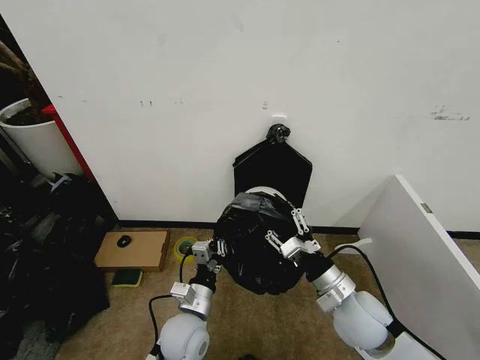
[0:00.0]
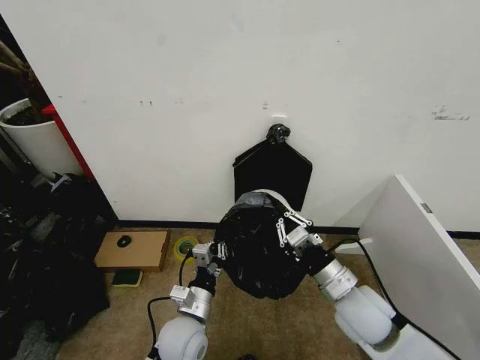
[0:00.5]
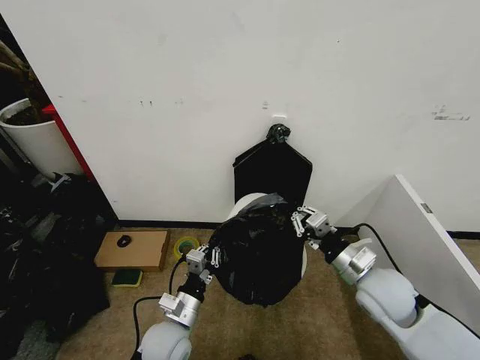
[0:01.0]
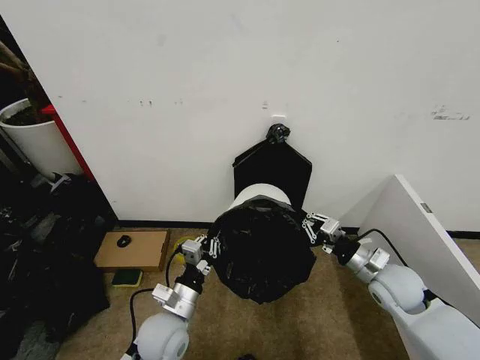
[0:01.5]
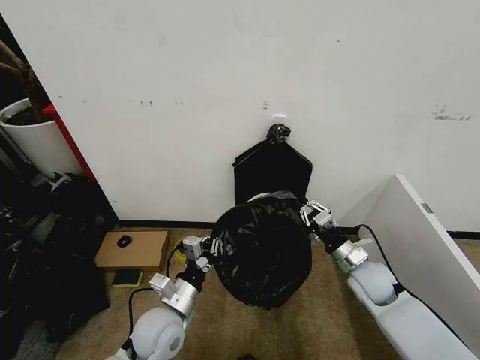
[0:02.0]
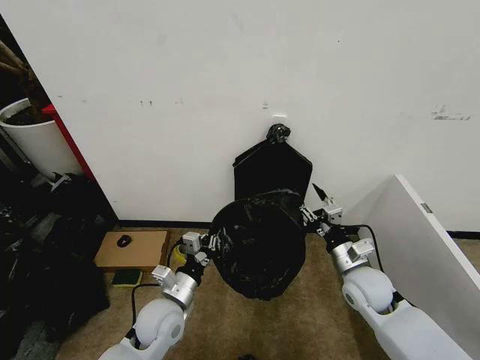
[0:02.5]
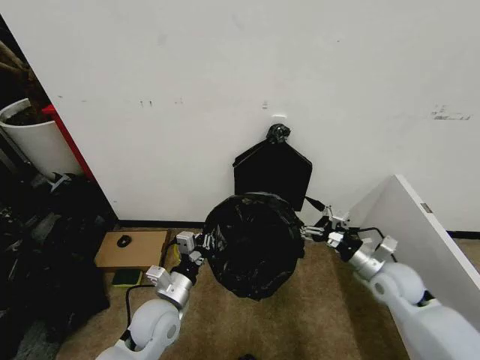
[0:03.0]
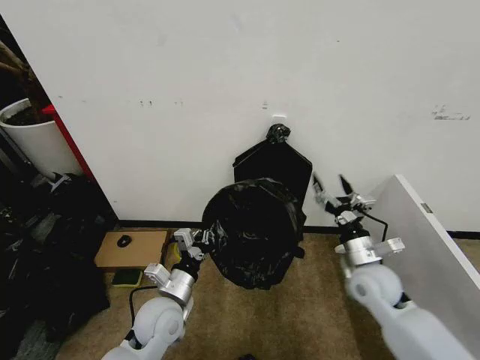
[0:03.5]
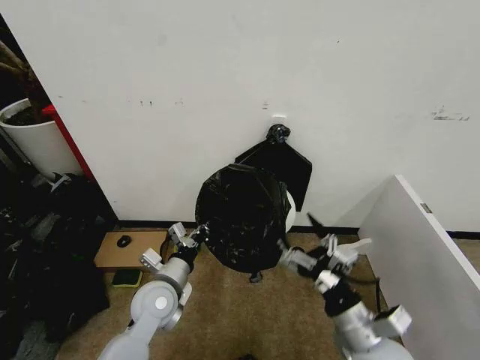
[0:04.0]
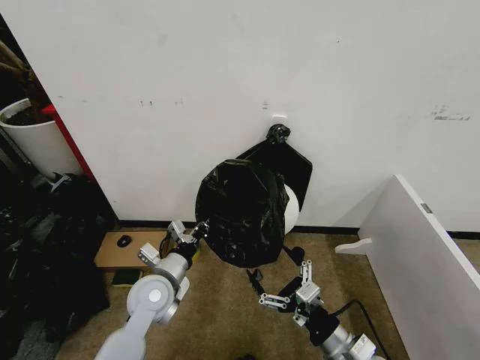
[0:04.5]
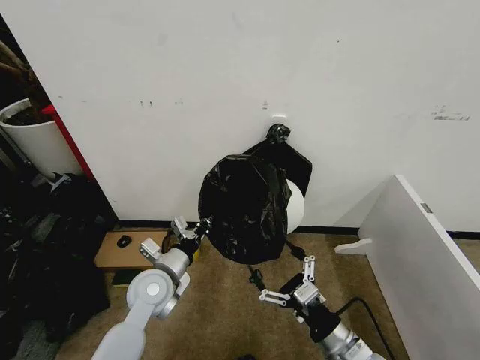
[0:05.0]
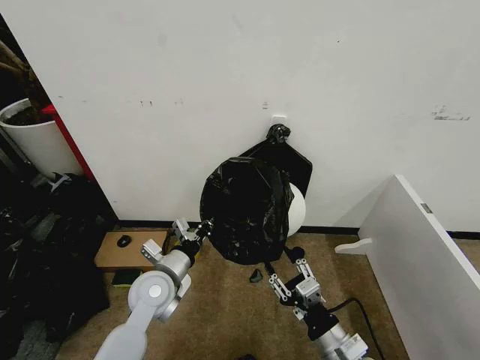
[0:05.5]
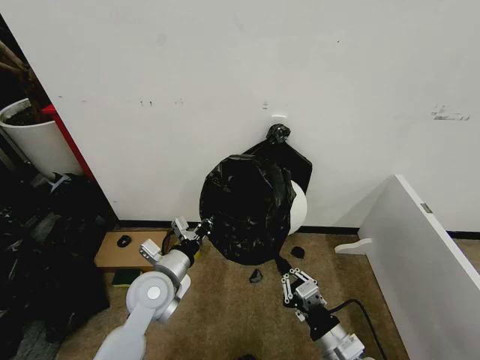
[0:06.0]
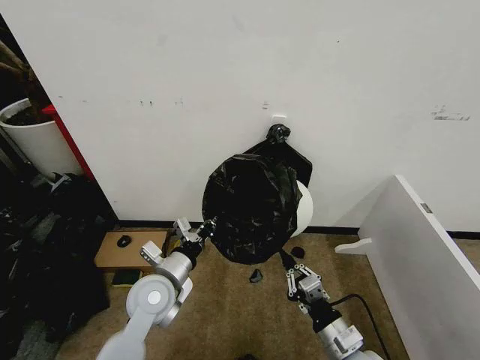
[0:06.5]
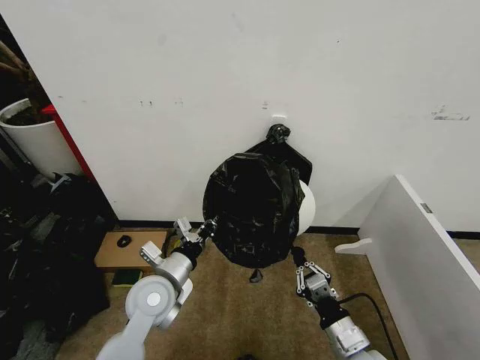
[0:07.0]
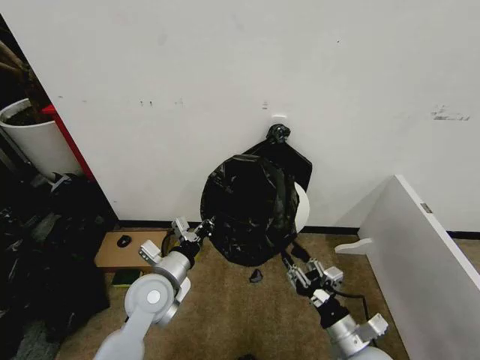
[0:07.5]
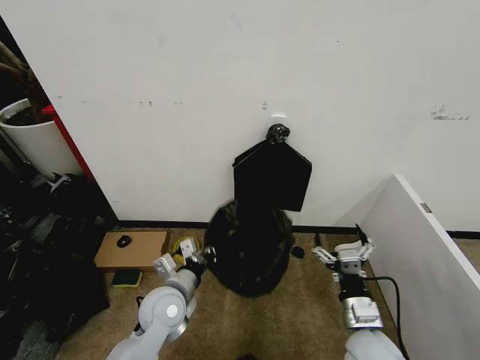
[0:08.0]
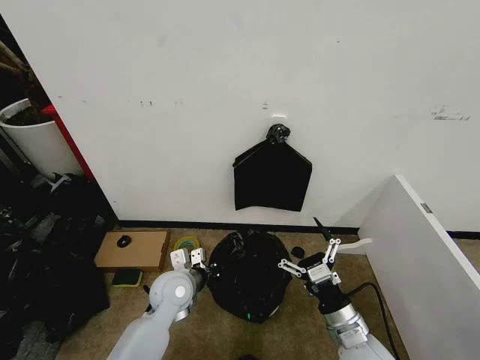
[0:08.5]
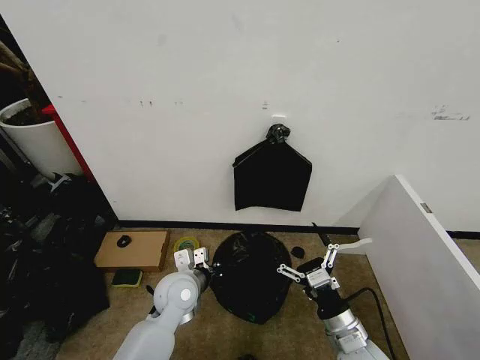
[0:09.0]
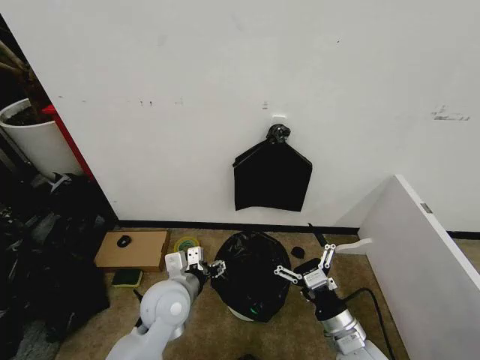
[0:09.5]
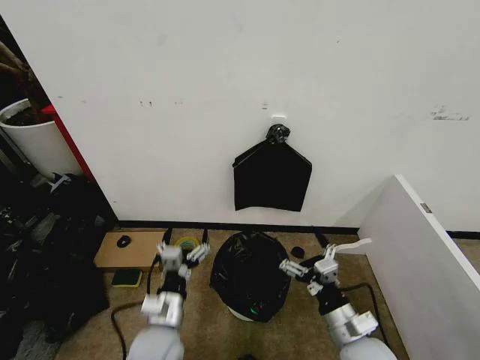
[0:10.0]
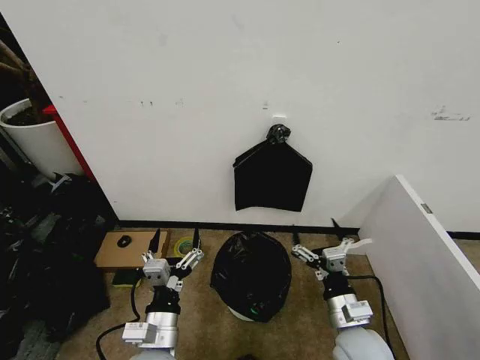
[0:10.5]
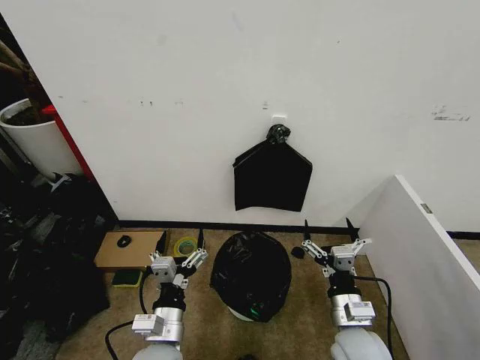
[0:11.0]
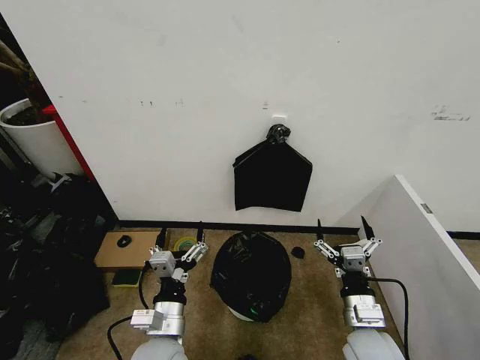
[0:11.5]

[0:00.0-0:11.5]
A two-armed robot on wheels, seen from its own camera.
Task of the whole recording: Place the garbage bag over the trash bin.
0:00.0 to 0:02.0: The left gripper ends up about 5 cm from where it was. The right gripper shifts about 15 cm forward, to the right and downward, and closes its fingers.
0:02.0 to 0:04.0: The right gripper goes about 20 cm backward, to the left and upward, and opens; the left gripper shifts some 5 cm forward.
0:04.0 to 0:06.0: The right gripper heads downward, covering approximately 5 cm, and closes.
0:06.0 to 0:07.5: The right gripper opens its fingers.
0:07.5 to 0:09.5: The right gripper opens up. The left gripper opens its fingers.
0:09.5 to 0:11.5: The left gripper shifts some 10 cm backward.

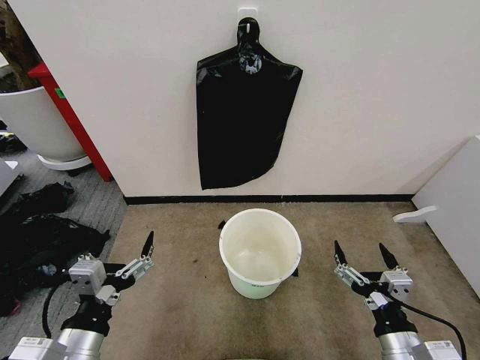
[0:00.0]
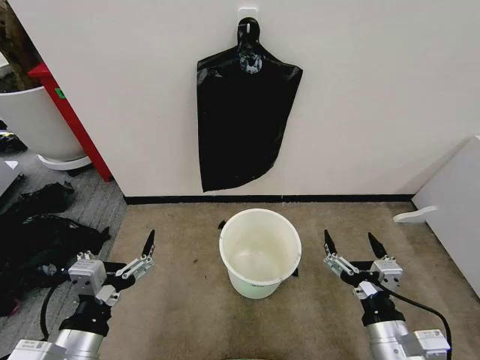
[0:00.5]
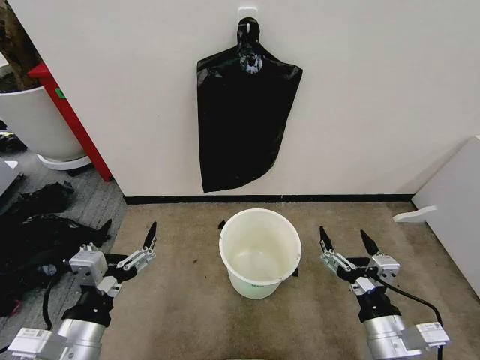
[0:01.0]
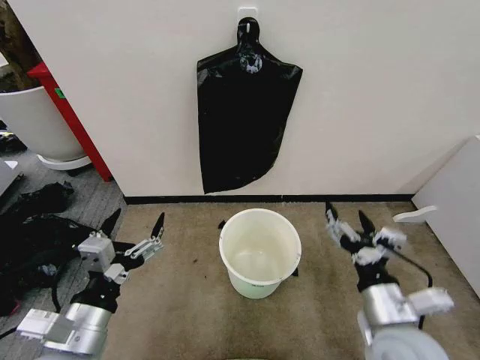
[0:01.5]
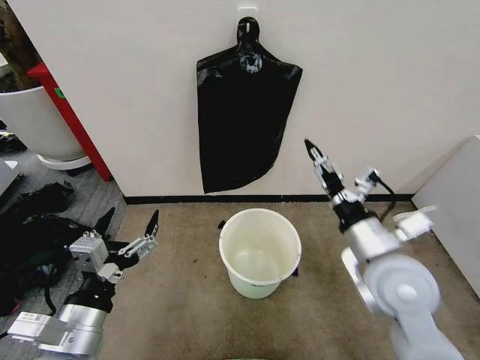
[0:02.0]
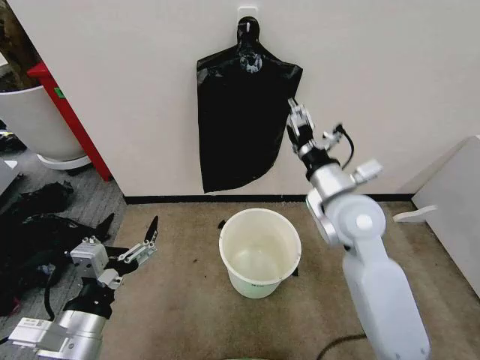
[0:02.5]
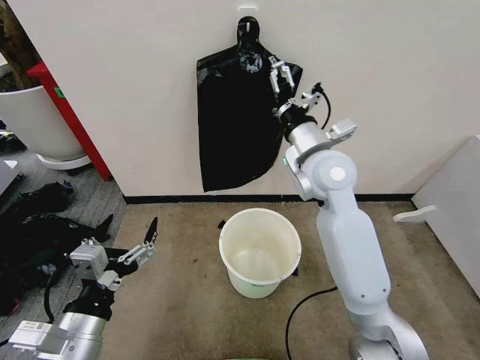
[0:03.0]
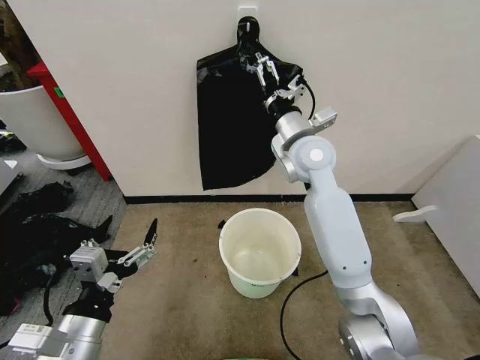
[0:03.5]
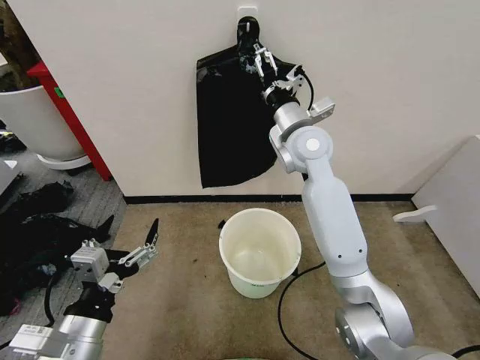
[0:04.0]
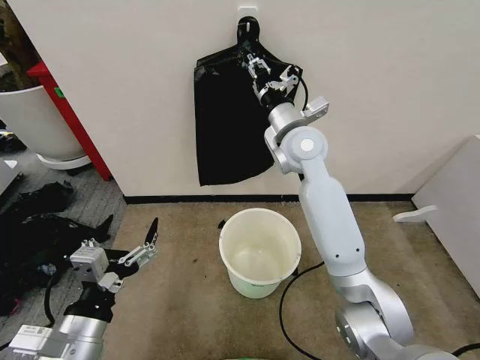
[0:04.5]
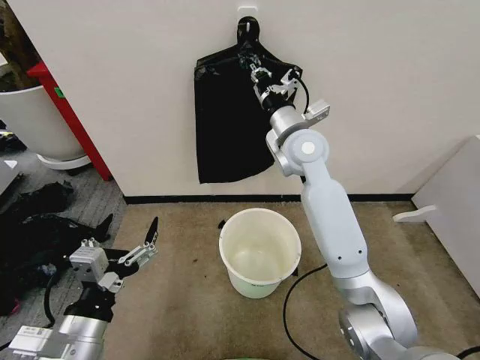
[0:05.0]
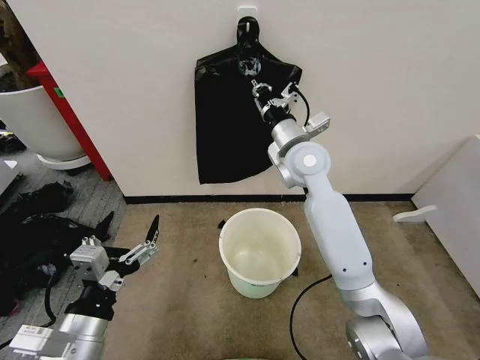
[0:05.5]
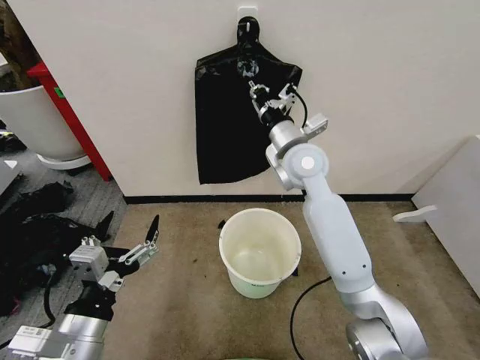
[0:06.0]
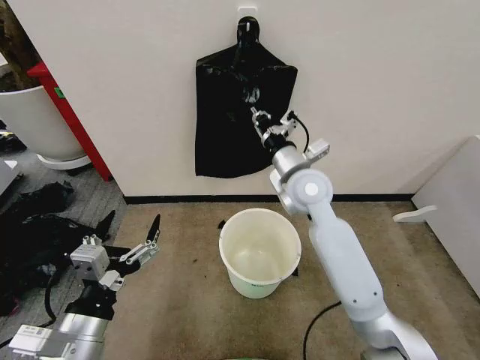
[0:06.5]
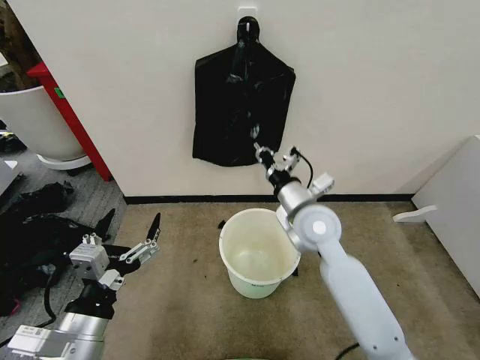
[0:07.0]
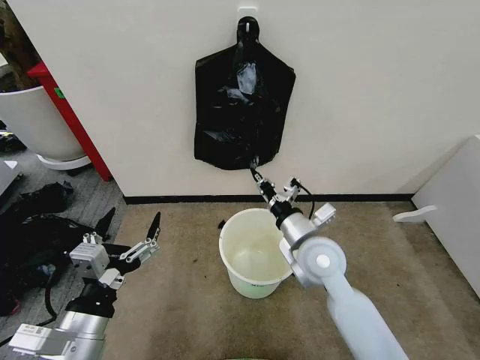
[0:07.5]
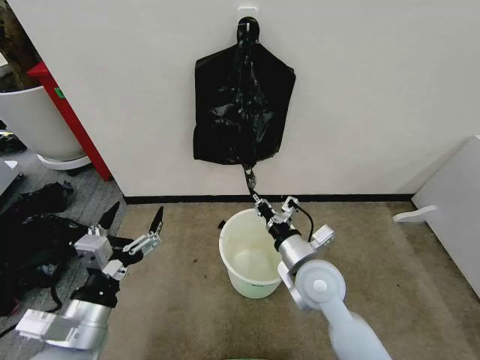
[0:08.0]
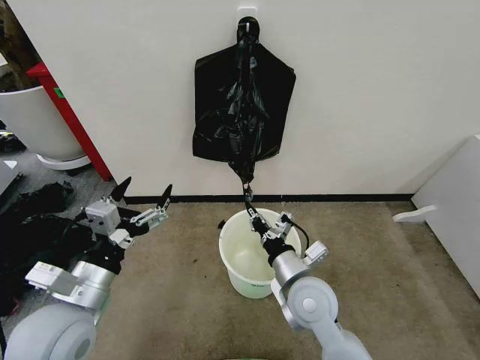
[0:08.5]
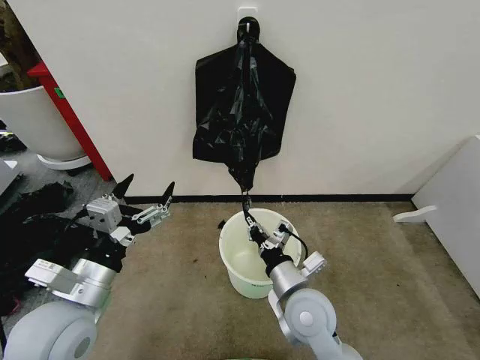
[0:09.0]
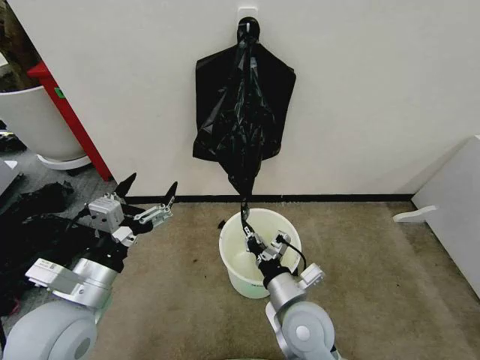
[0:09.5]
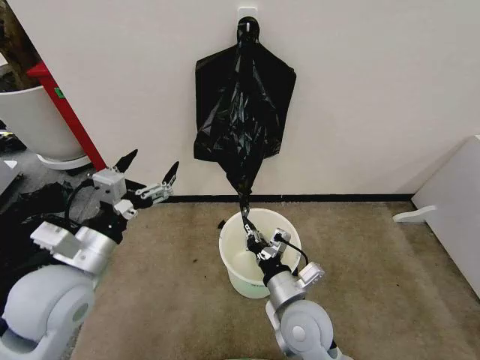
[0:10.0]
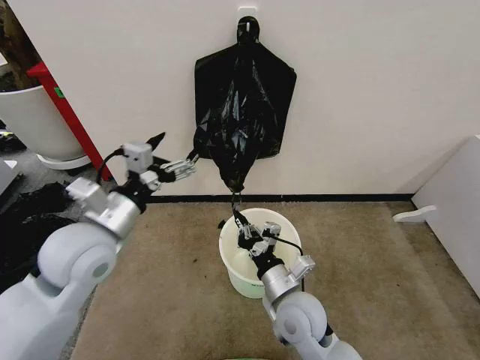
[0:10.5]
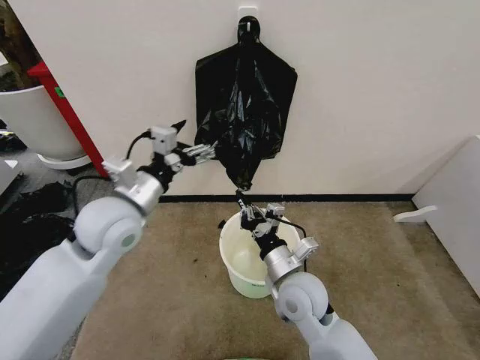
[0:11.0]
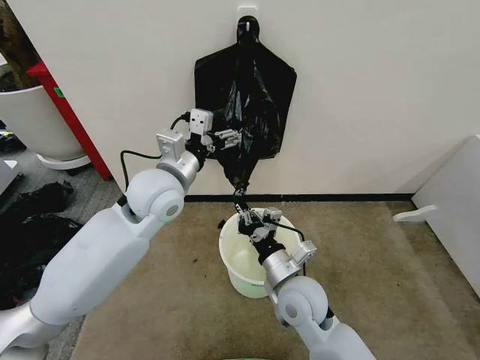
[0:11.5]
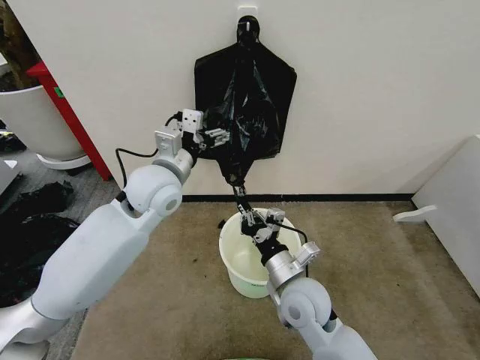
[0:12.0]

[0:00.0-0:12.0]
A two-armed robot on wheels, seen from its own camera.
Task of the whole recording: Place the garbage bag over the trash bin.
0:02.0 to 0:04.0: The right gripper goes about 30 cm forward, to the left and upward.
0:04.0 to 0:06.0: The right gripper closes up.
0:06.0 to 0:08.0: The right gripper travels backward and downward by approximately 25 cm.
0:08.0 to 0:10.0: The left gripper heads forward and upward, covering about 10 cm. Meanwhile the right gripper shifts approximately 5 cm backward.
0:10.0 to 0:12.0: The left gripper travels forward and to the right by some 20 cm.

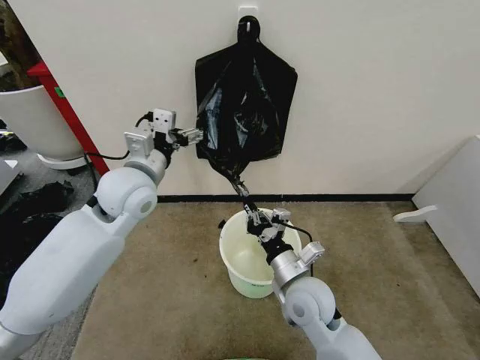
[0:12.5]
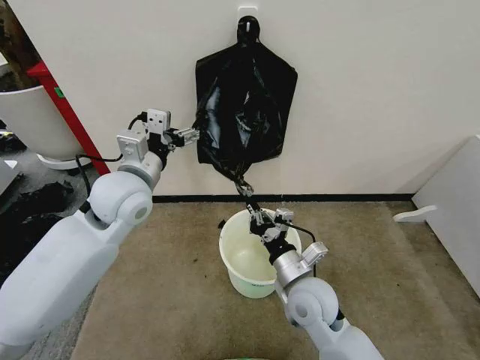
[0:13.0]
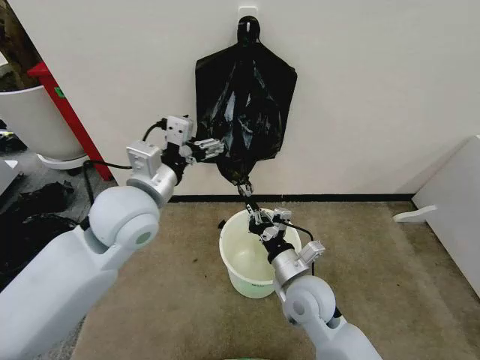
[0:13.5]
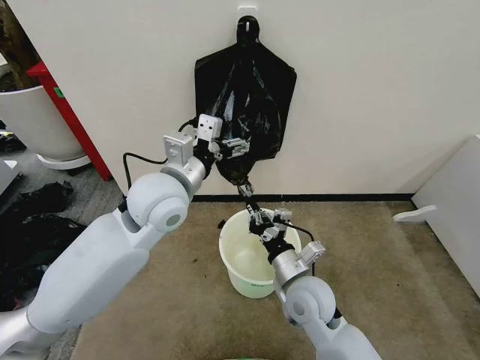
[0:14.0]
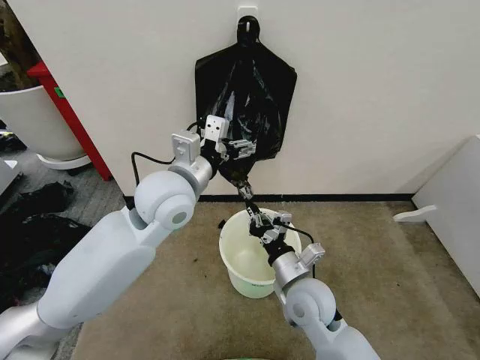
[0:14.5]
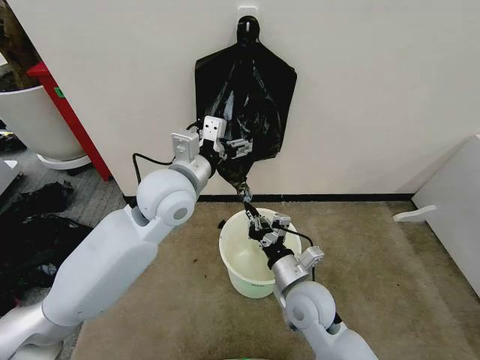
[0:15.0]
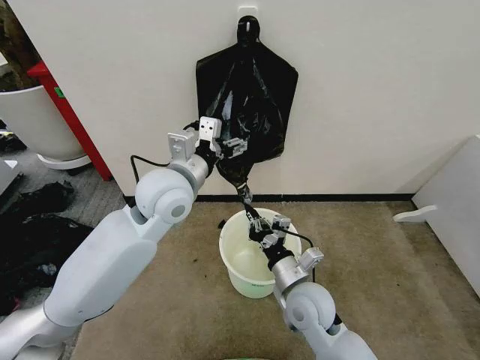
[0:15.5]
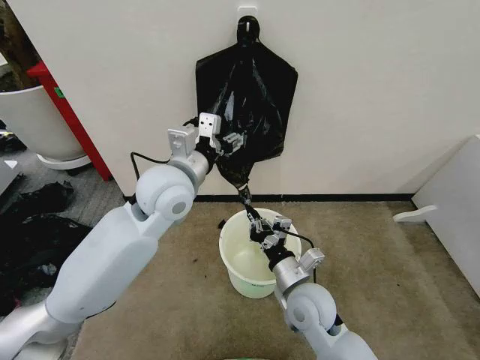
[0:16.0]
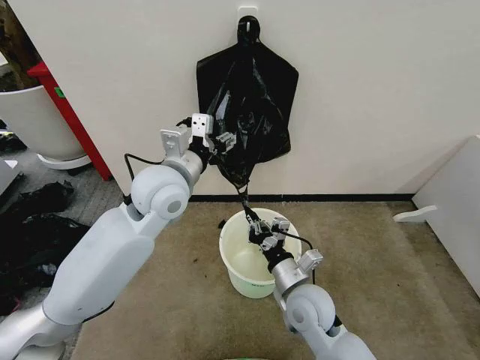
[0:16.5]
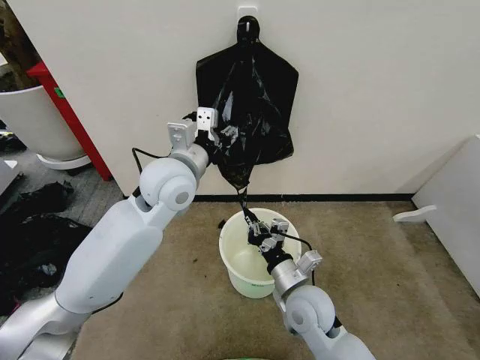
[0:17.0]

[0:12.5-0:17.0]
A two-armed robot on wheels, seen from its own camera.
Task of the whole recording: Place the garbage bag over the trash bin.
0:12.5 to 0:14.5: The left gripper goes approximately 10 cm to the right.
0:14.5 to 0:17.0: The left gripper closes its fingers.
